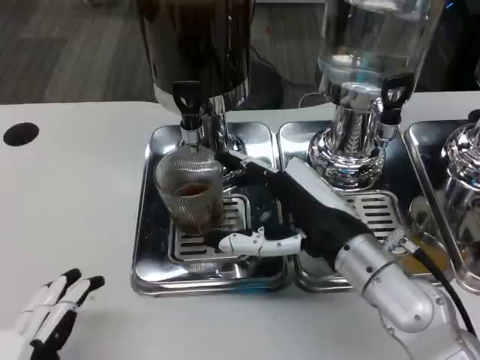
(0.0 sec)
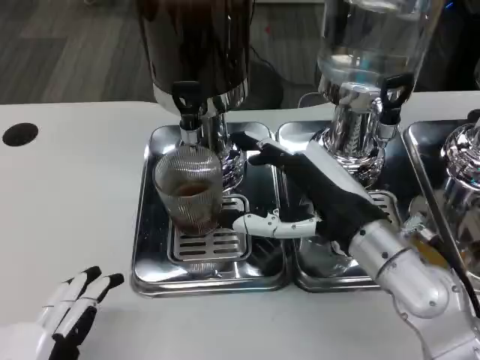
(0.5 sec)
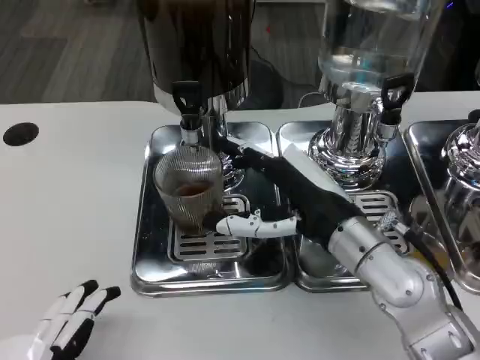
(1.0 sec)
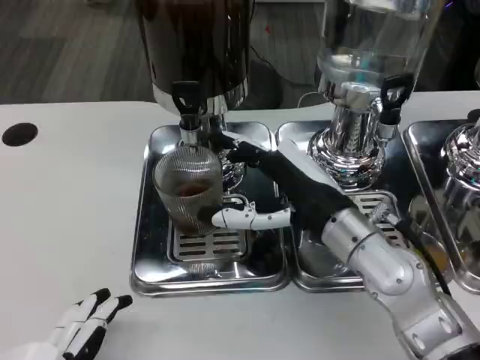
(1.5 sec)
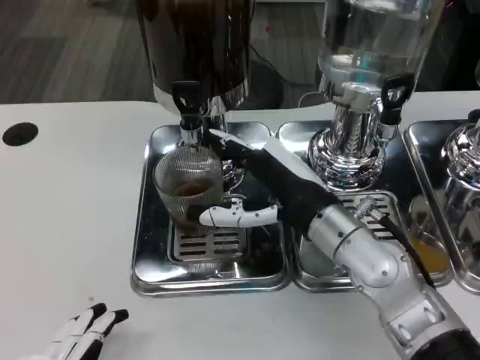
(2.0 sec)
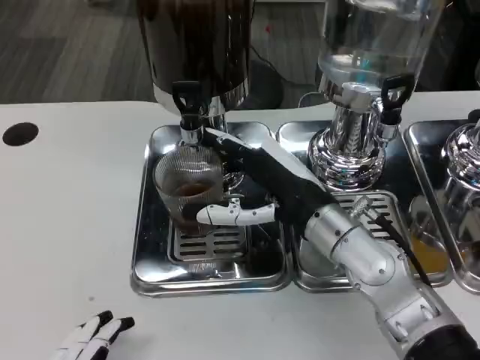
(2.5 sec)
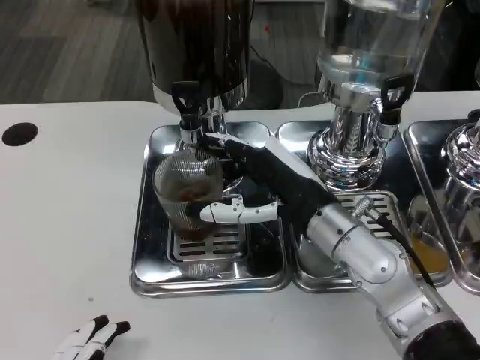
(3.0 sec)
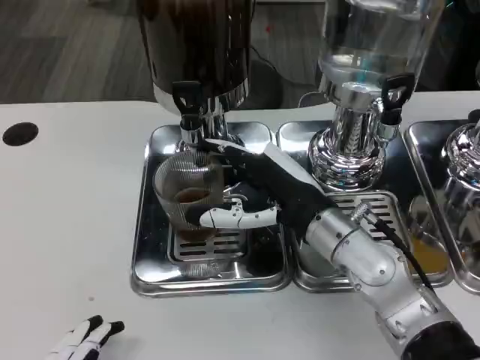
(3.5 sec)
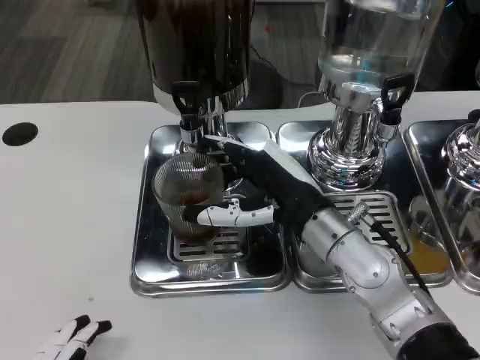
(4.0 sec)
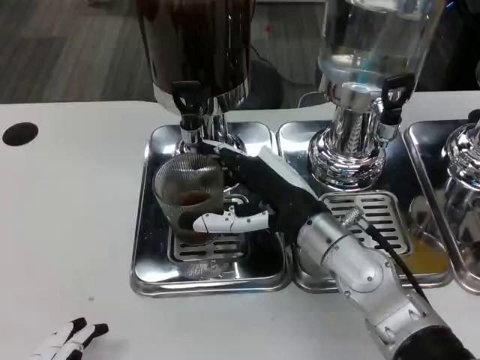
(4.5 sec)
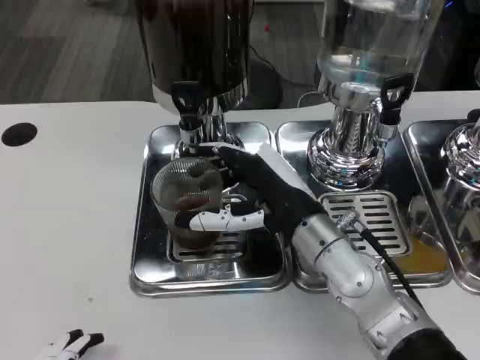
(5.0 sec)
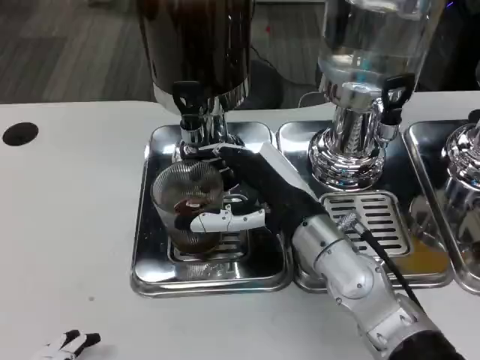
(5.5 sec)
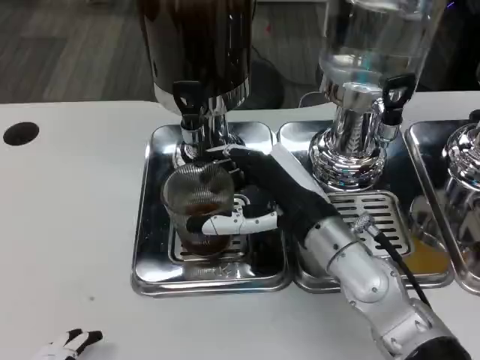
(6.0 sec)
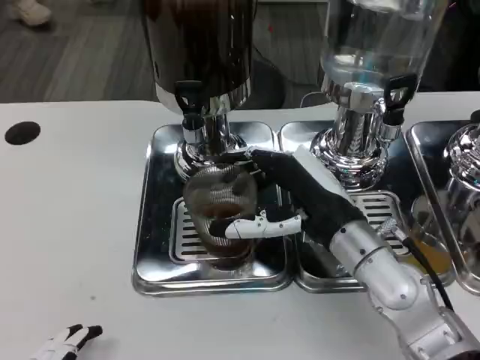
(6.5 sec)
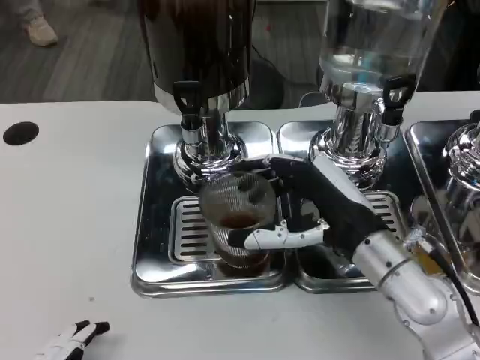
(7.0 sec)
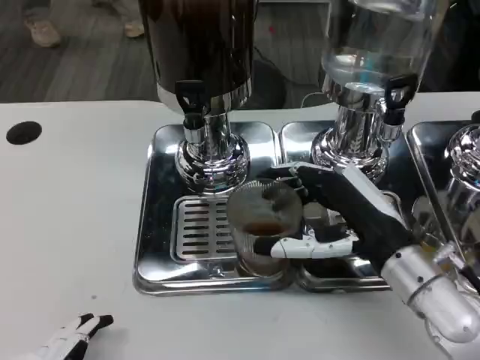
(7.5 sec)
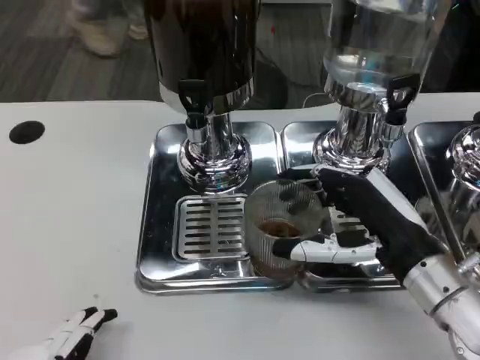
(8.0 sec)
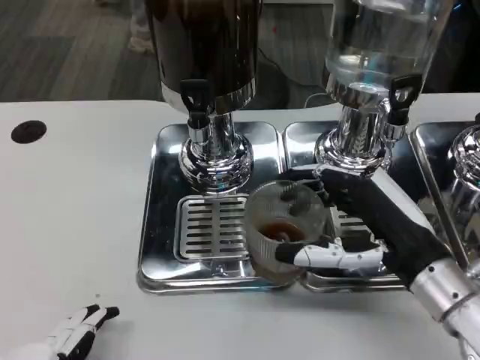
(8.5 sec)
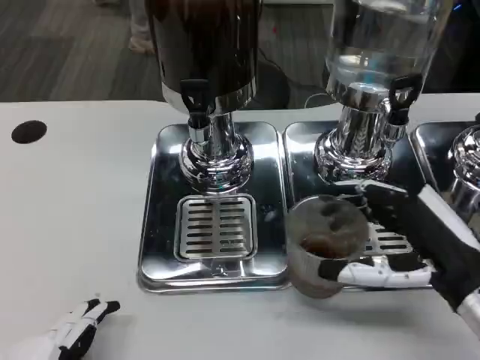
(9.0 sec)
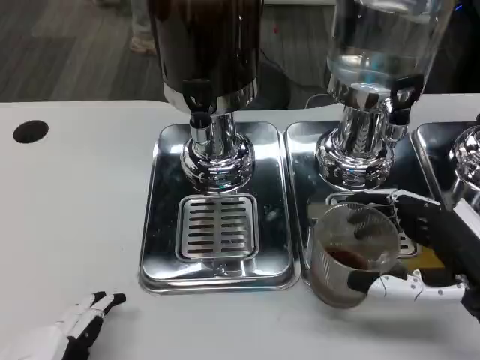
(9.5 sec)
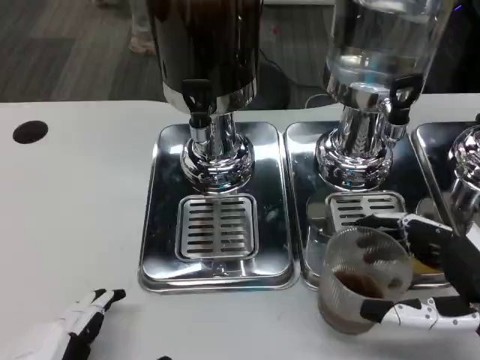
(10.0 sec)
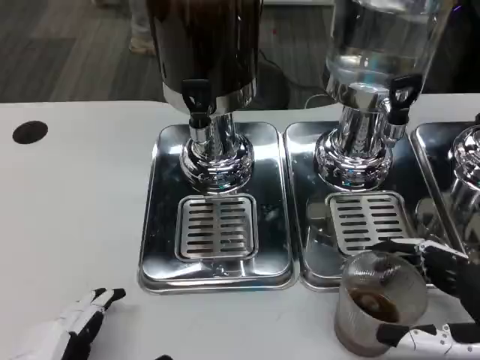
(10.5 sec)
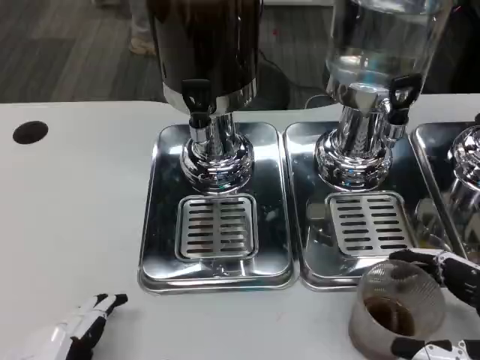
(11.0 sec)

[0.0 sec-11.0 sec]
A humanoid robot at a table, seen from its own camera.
Task of the whole recording: Grasp the cup under the faucet to collect the drink, then remove the cup.
0.0 sec to 2.0 sec: The hands stay close to where they were, moving slightly.
2.0 sec to 3.5 sec: The two hands keep their place.
3.5 sec to 5.5 sec: The hands stay close to where they were, moving slightly.
5.5 sec to 7.5 sec: The right hand travels to the right by about 10 cm.
7.5 sec to 9.0 sec: The right hand travels to the right by approximately 5 cm.
9.0 sec to 11.0 sec: The right hand shifts roughly 10 cm backward, to the right and downward.

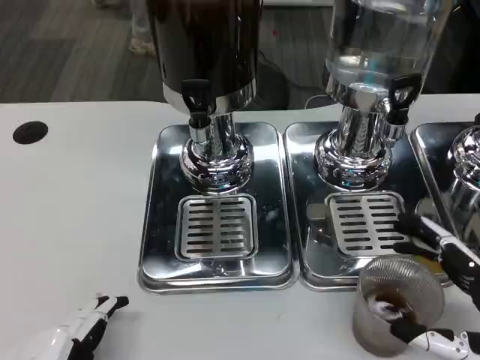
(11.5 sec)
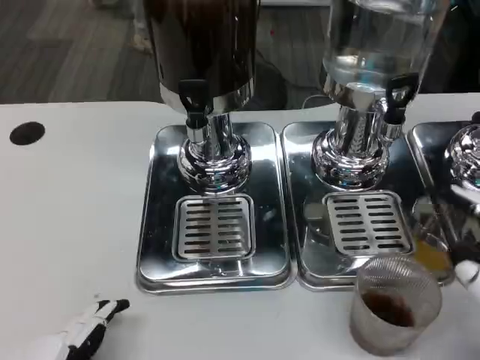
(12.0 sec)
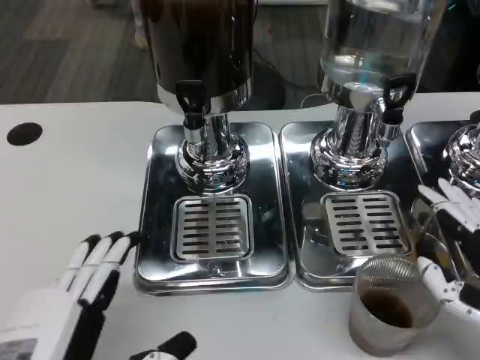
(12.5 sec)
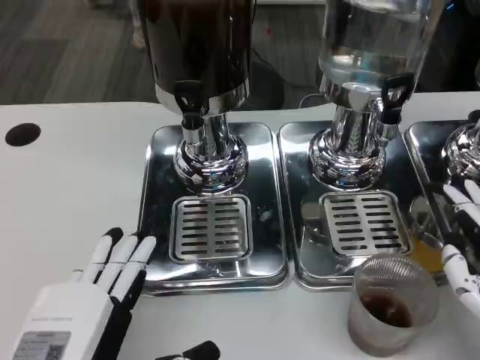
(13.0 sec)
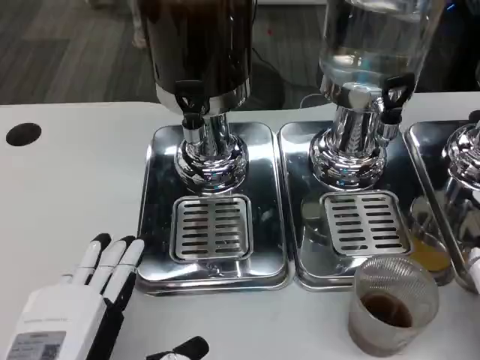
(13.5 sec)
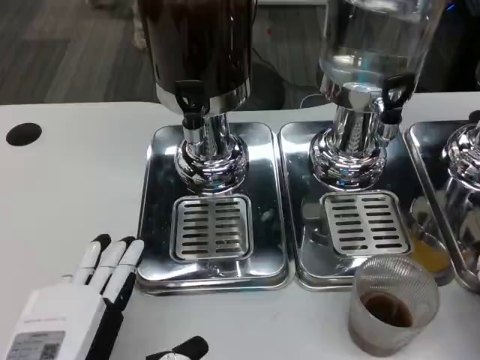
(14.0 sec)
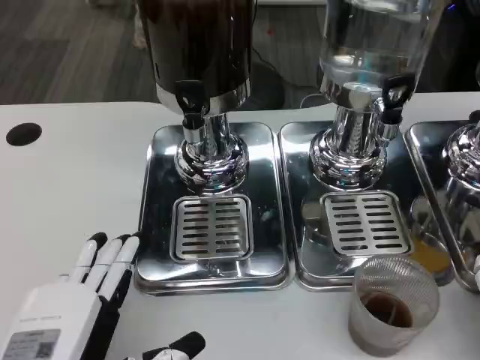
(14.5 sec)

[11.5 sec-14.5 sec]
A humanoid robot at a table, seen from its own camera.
Task of the whole recording: Grasp the cup under the faucet to collect the drink, then remove the cup.
11.5 sec to 13.0 sec: The right hand heads upward, covering about 5 cm.
13.0 sec to 14.5 sec: There are only small adjustments of the hands.

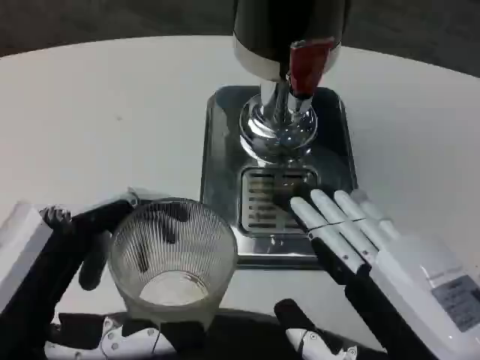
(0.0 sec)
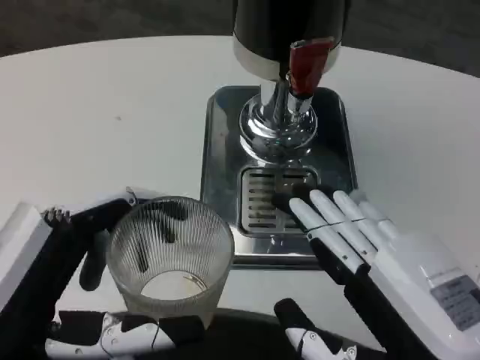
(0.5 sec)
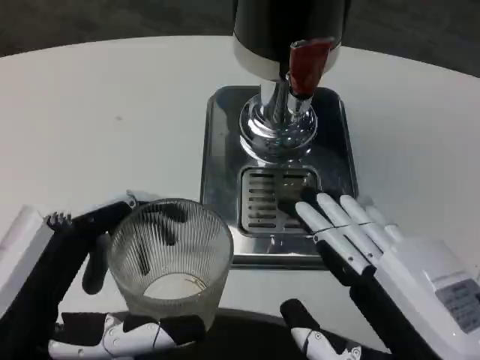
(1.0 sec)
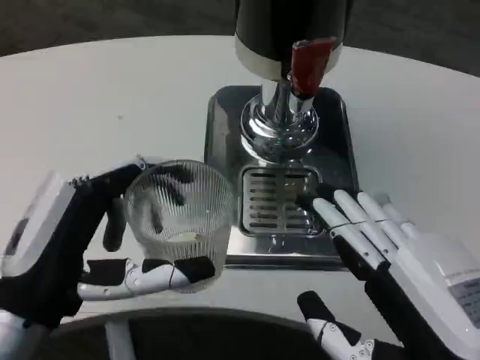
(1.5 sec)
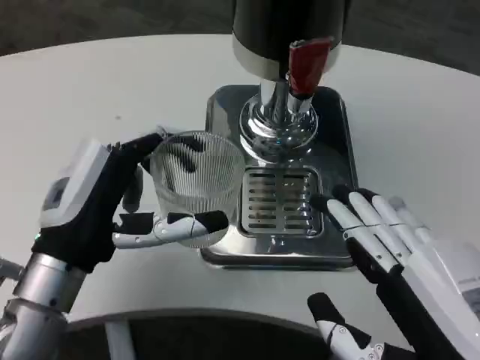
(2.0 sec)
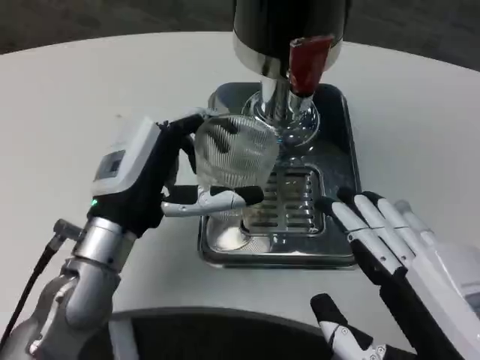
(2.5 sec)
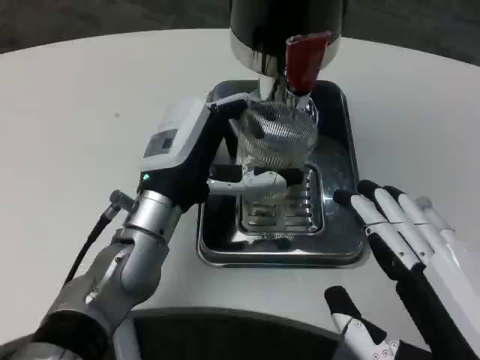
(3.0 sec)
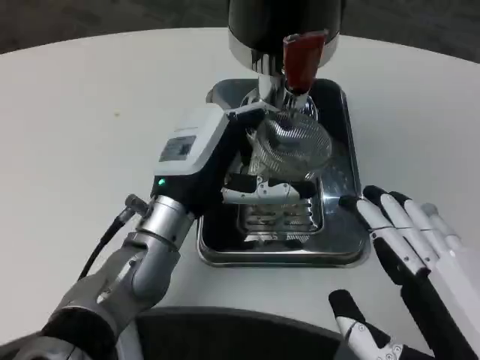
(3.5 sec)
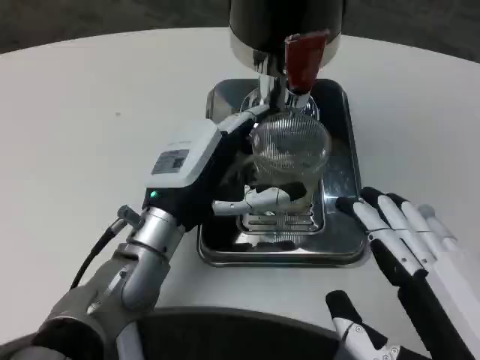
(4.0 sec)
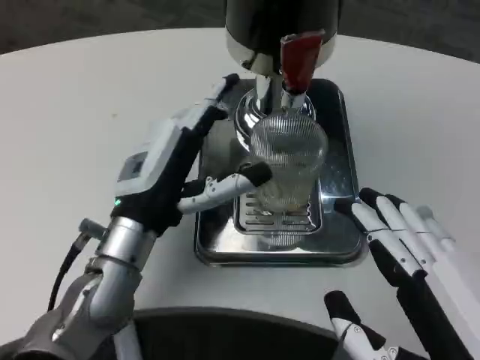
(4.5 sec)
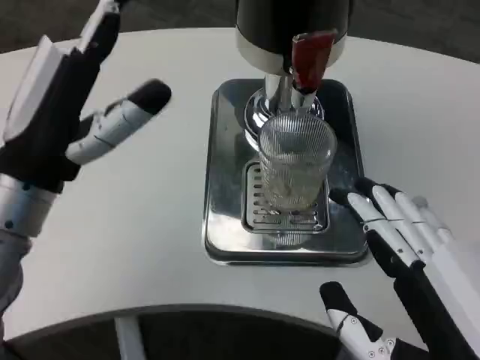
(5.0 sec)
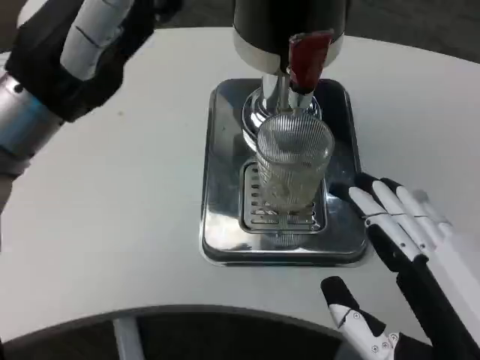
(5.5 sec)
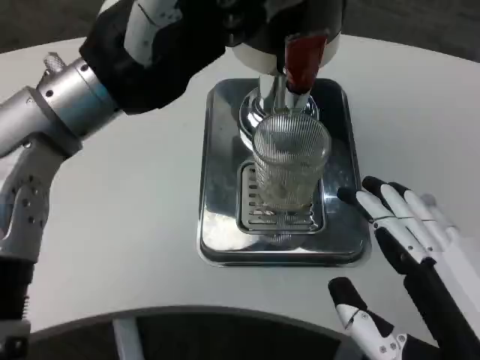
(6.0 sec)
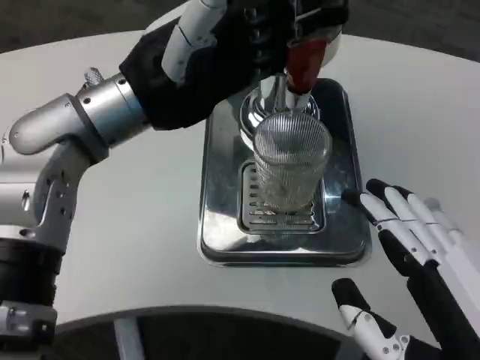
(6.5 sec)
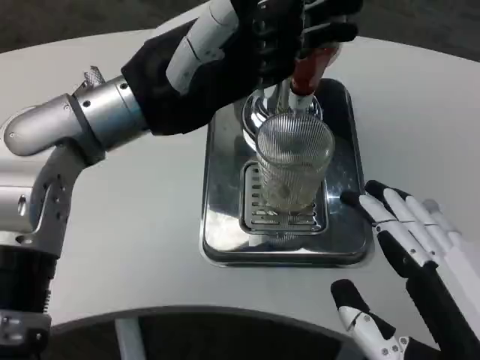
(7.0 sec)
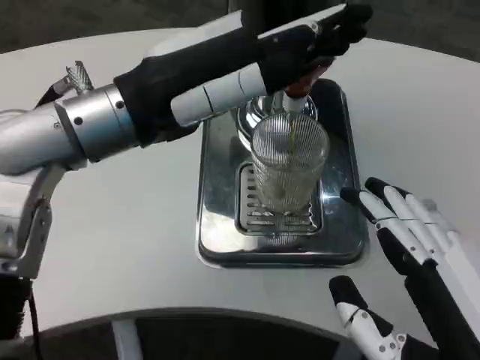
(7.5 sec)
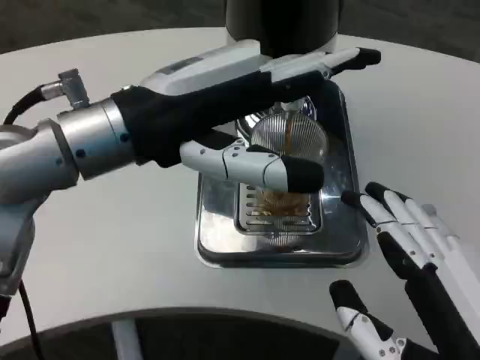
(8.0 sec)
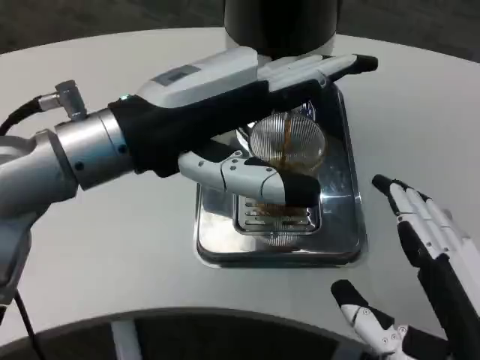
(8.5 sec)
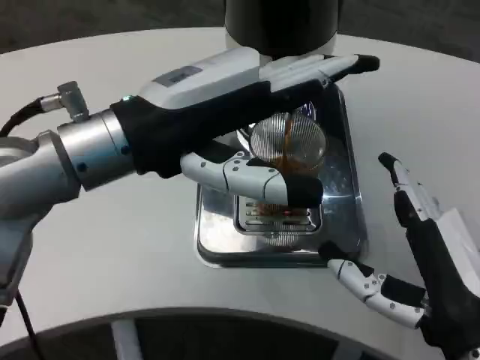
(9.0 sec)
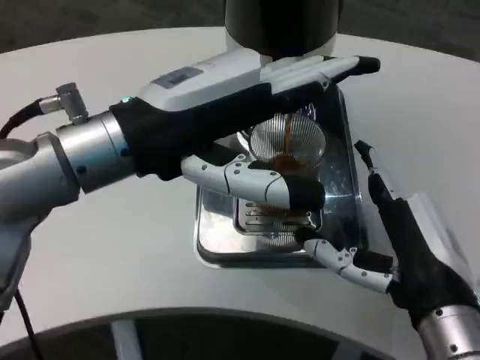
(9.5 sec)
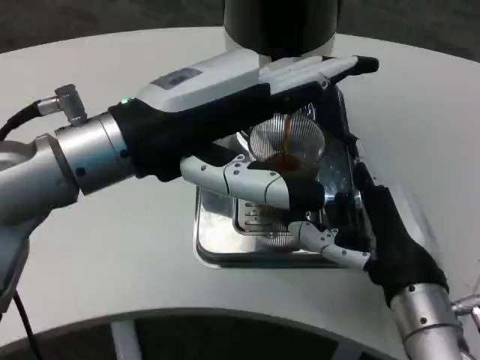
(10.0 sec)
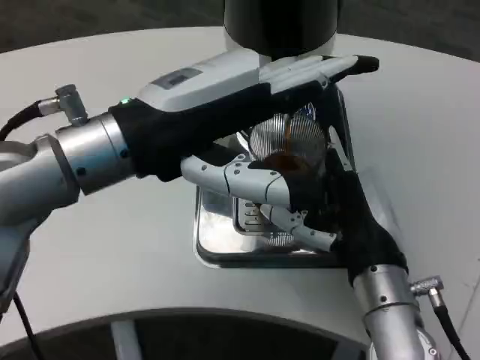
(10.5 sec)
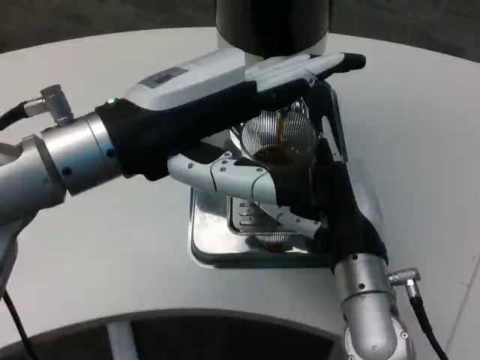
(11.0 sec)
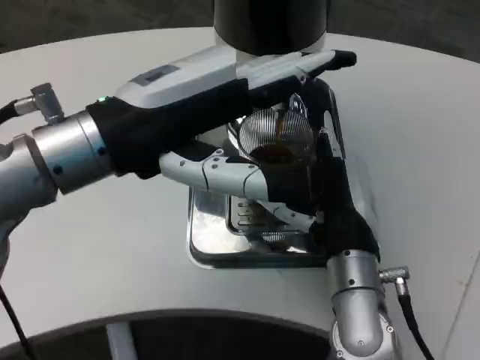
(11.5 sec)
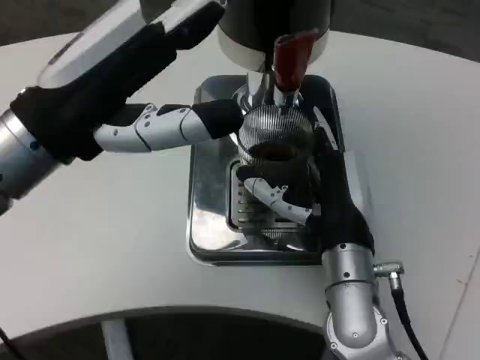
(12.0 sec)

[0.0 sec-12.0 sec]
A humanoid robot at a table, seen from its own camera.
Task of the whole recording: Grasp the cup under the faucet to collect the drink, then remove the cup.
0.0 sec to 2.0 sec: The left hand travels forward by some 10 cm.
2.0 sec to 4.0 sec: The left hand is displaced forward and to the right by about 10 cm.
4.0 sec to 6.0 sec: The left hand shifts some 15 cm upward.
8.0 sec to 10.0 sec: The right hand is displaced forward by some 15 cm.
10.0 sec to 12.0 sec: The right hand moves to the left and forward, some 10 cm.
